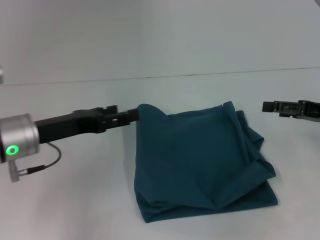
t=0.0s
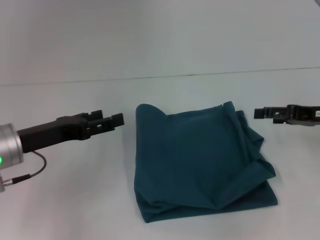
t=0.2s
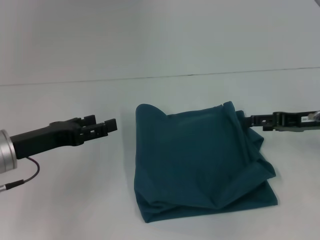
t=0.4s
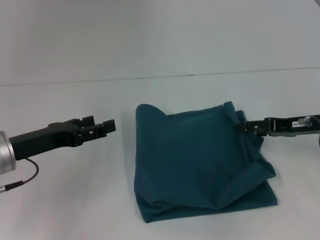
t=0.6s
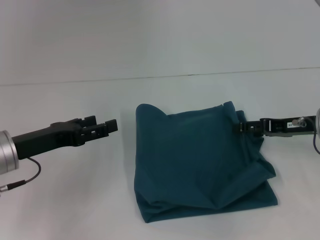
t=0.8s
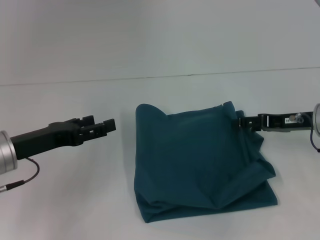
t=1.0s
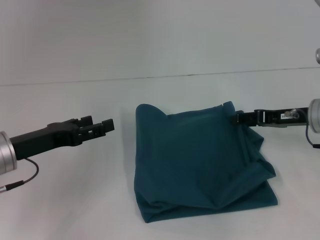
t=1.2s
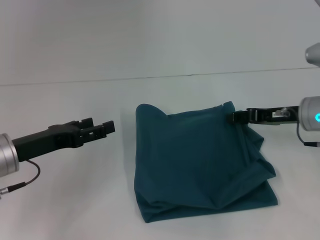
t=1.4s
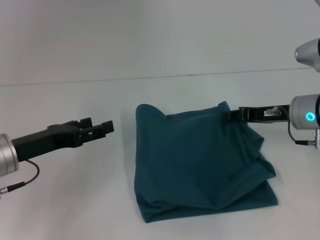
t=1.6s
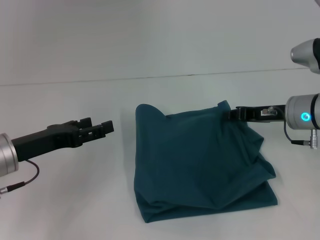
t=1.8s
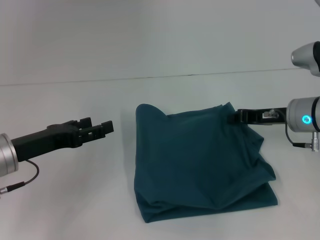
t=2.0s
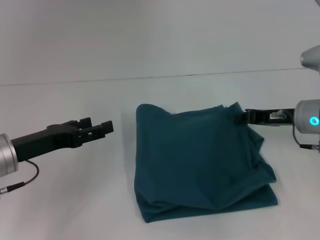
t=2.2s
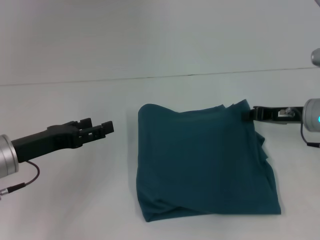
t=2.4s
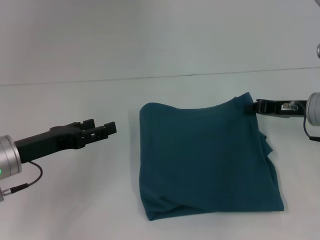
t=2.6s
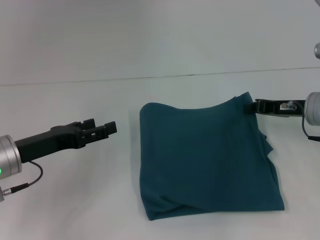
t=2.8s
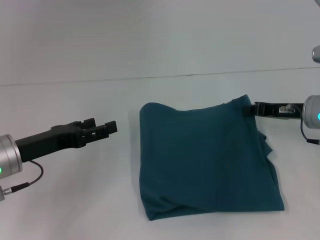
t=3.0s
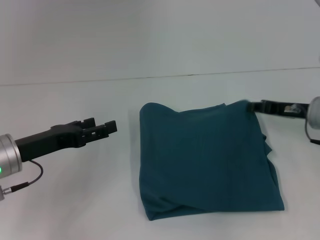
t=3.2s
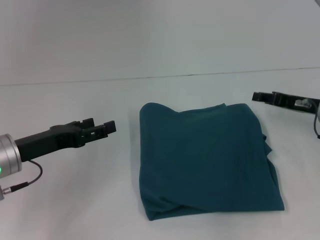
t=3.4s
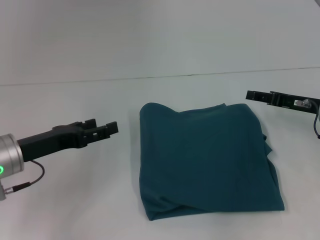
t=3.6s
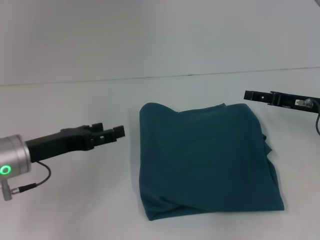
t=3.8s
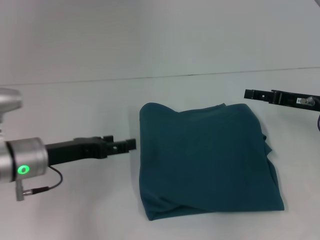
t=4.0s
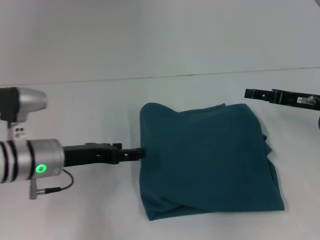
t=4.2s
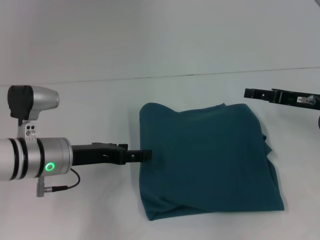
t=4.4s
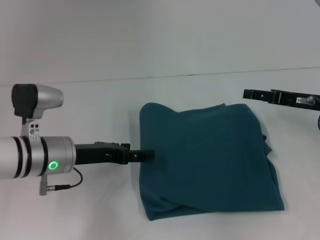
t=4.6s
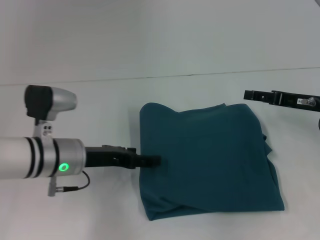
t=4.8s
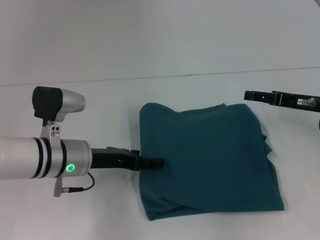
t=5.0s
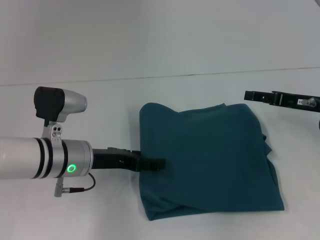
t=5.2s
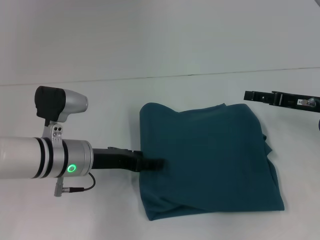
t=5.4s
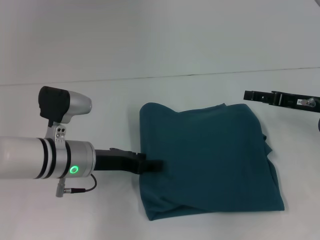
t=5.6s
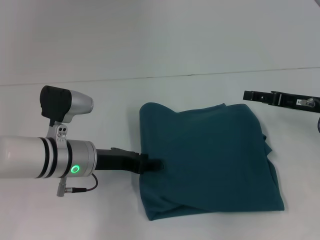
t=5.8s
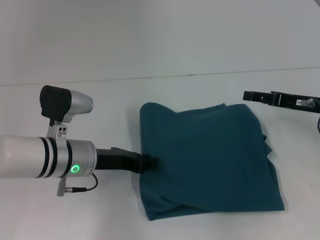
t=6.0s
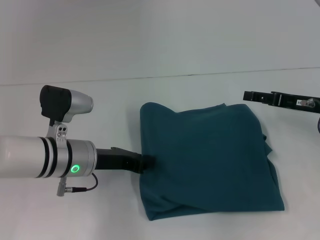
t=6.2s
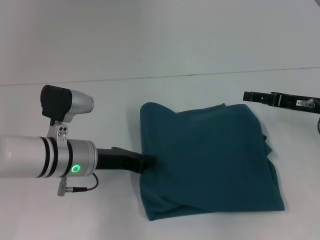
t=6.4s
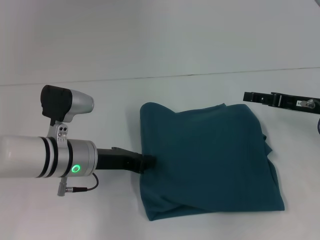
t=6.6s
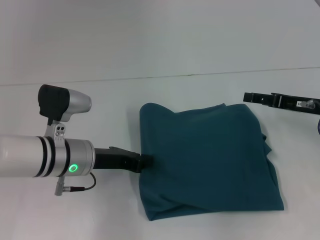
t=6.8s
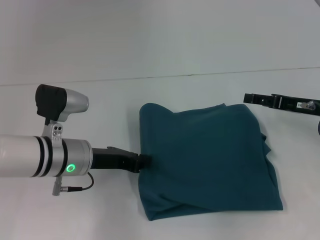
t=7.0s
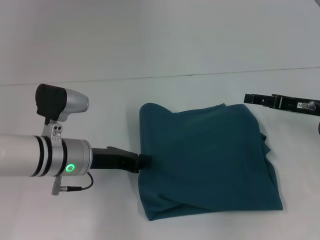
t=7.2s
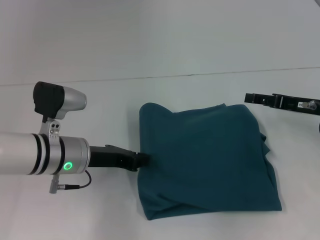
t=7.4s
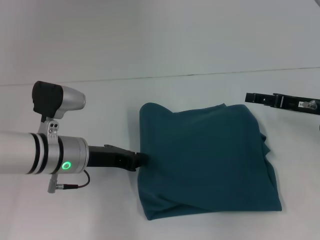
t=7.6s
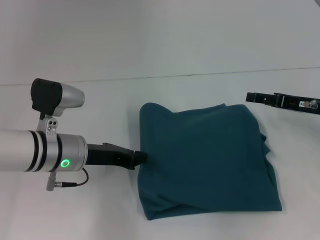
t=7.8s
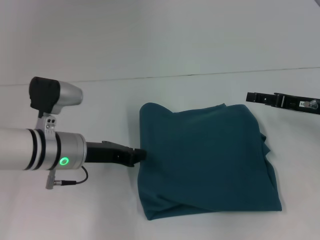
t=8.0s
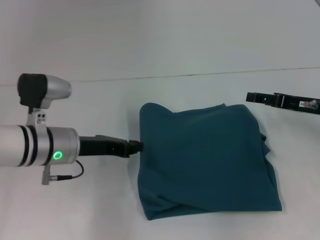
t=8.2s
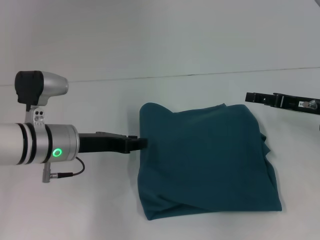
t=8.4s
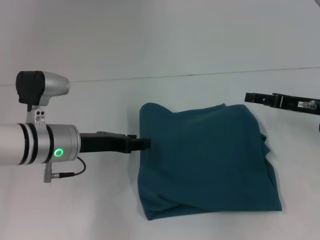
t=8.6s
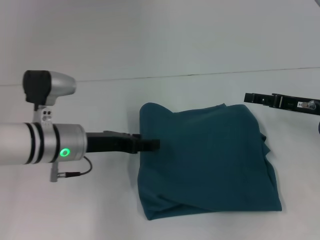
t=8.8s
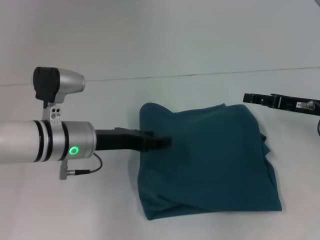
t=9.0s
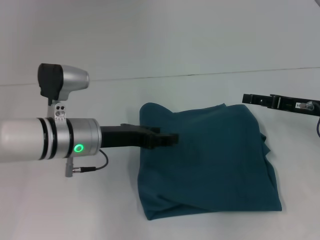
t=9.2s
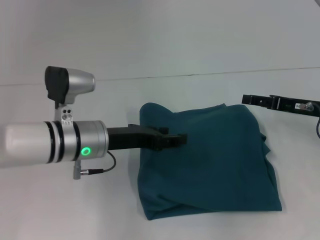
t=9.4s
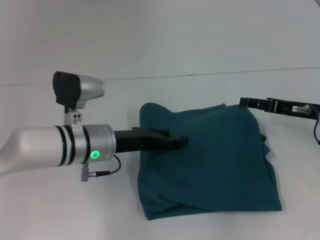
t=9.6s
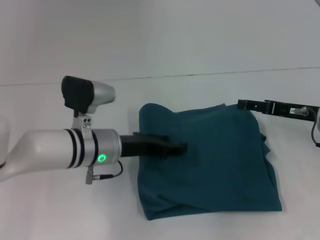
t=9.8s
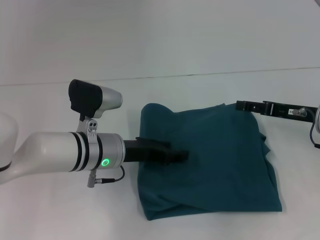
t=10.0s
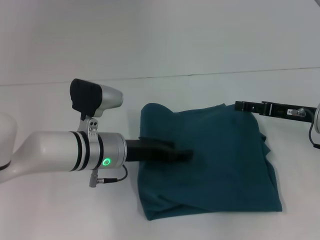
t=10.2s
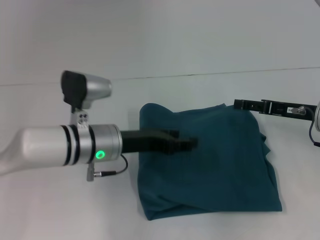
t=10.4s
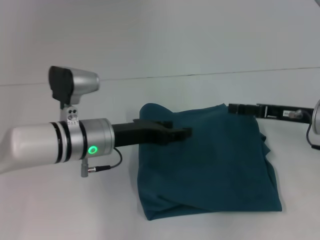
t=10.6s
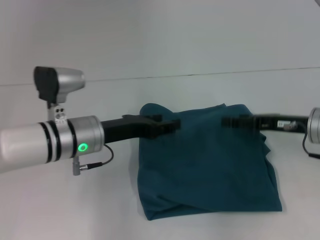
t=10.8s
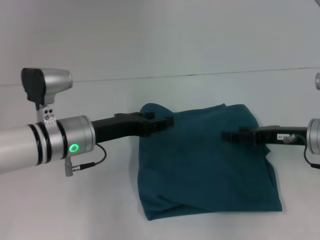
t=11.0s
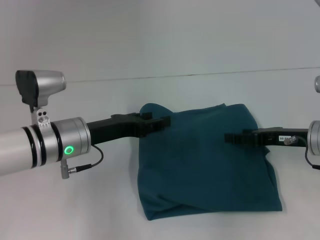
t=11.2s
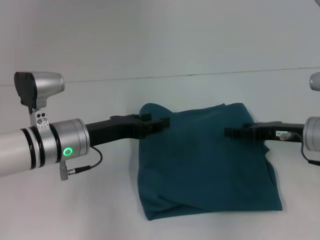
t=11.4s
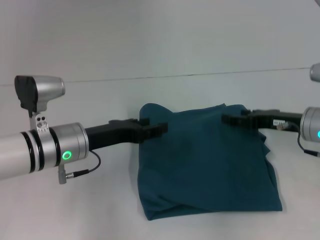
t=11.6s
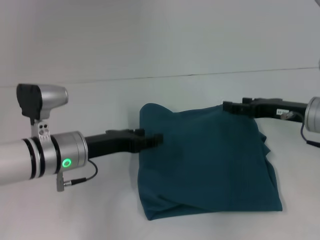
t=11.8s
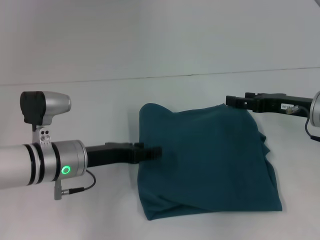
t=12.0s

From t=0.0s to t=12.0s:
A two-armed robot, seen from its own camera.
From t=0.0s to t=1.6s: The right gripper goes approximately 10 cm to the left, and closes up.
From t=1.6s to t=3.0s: The right gripper closes its fingers.
From t=3.0s to t=4.4s: The right gripper opens; the left gripper travels to the right by approximately 5 cm.
From t=4.4s to t=6.0s: The left gripper closes.
From t=6.0s to t=7.6s: The left gripper closes.
From t=7.6s to t=9.0s: The left gripper opens its fingers.
From t=9.0s to t=10.4s: There are only small adjustments of the grippers.
From t=10.4s to t=12.0s: The left gripper heads to the left, covering some 5 cm.

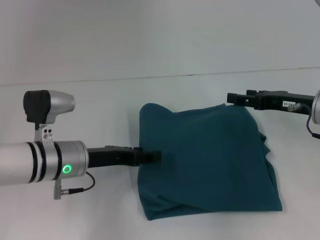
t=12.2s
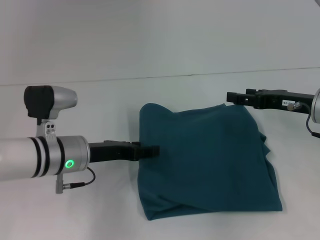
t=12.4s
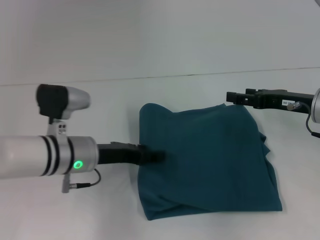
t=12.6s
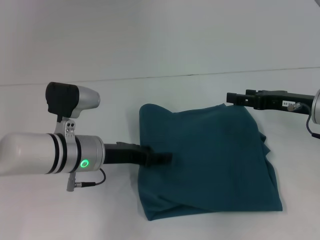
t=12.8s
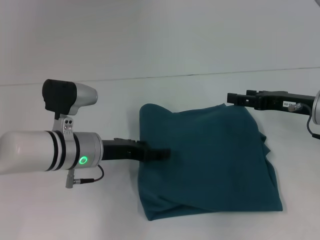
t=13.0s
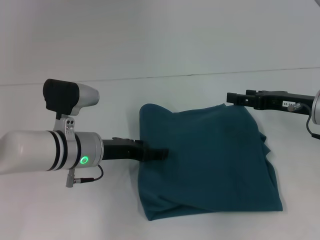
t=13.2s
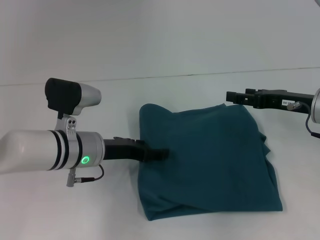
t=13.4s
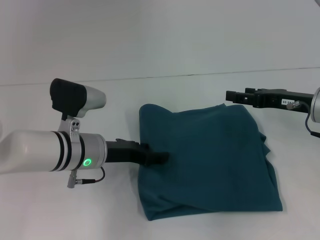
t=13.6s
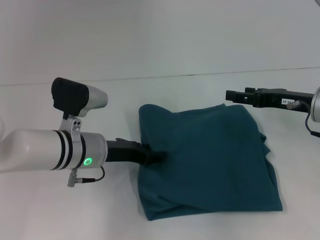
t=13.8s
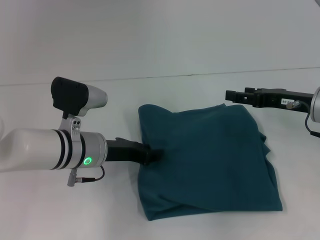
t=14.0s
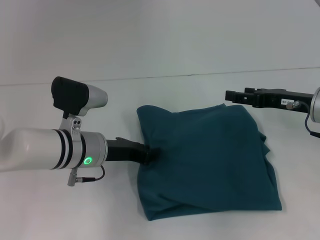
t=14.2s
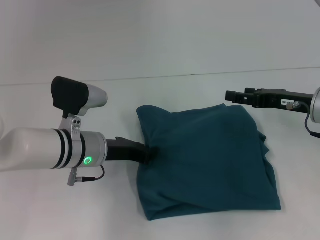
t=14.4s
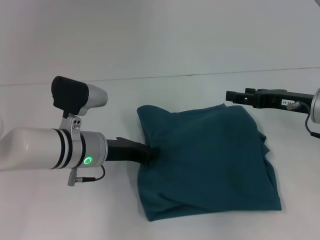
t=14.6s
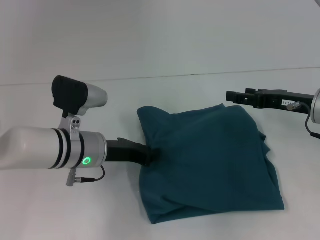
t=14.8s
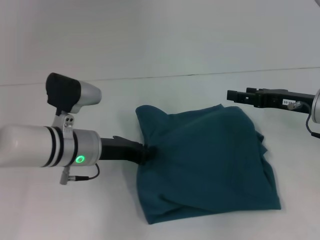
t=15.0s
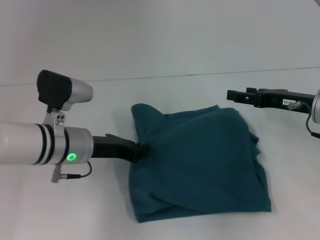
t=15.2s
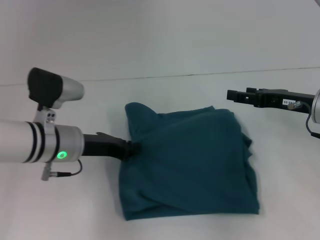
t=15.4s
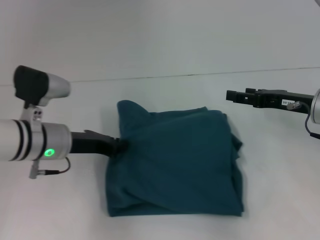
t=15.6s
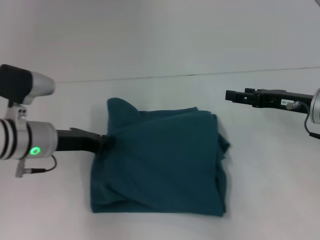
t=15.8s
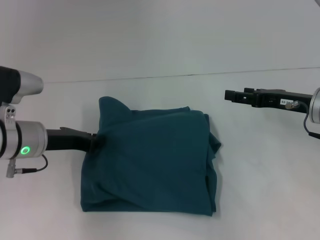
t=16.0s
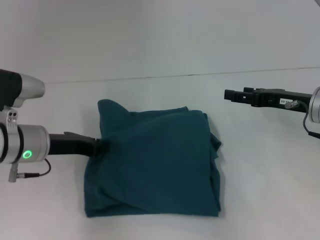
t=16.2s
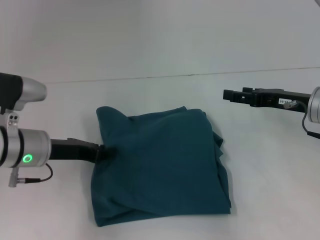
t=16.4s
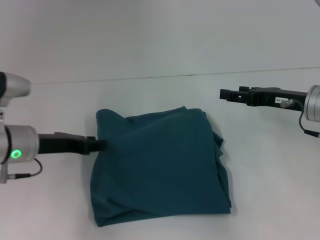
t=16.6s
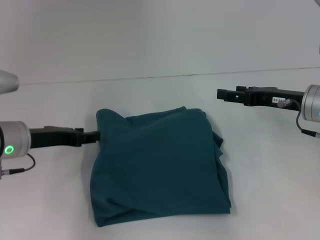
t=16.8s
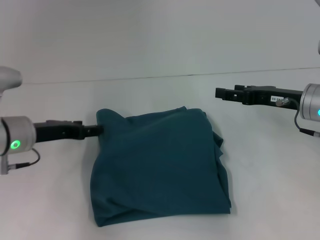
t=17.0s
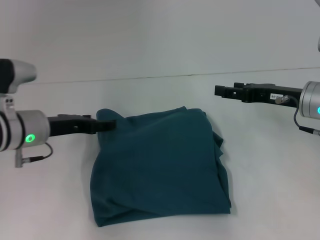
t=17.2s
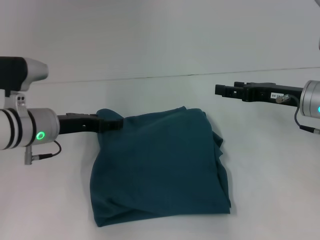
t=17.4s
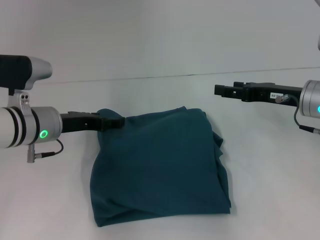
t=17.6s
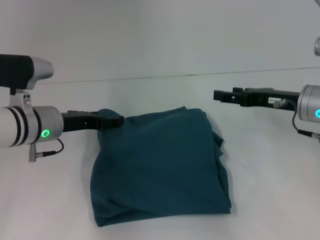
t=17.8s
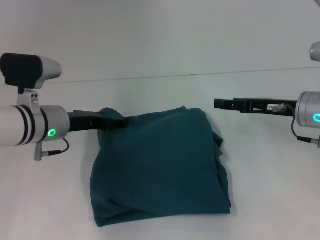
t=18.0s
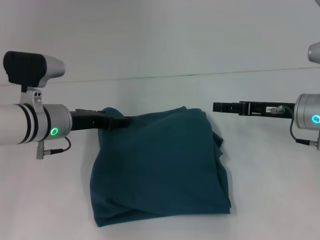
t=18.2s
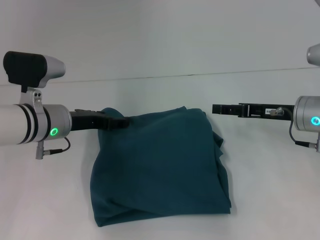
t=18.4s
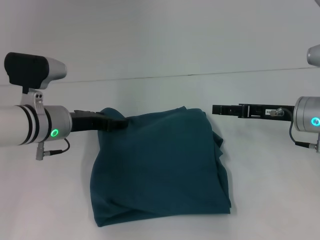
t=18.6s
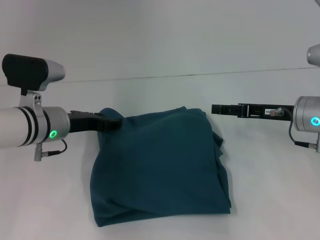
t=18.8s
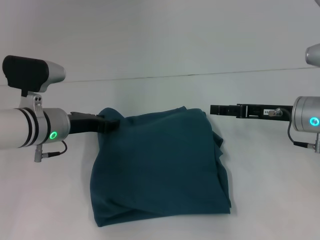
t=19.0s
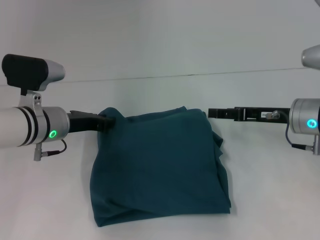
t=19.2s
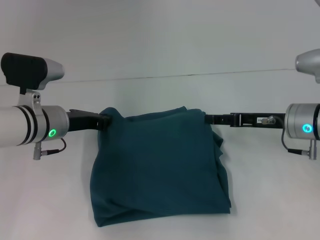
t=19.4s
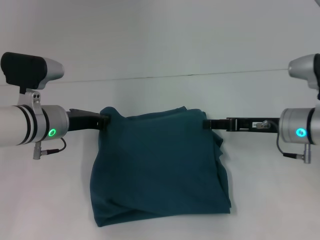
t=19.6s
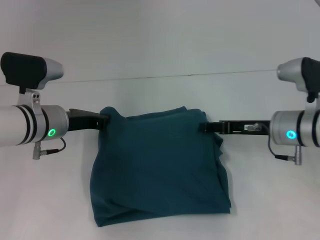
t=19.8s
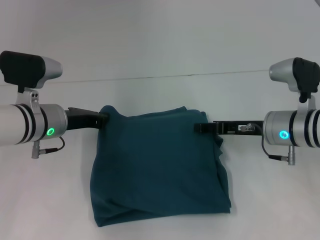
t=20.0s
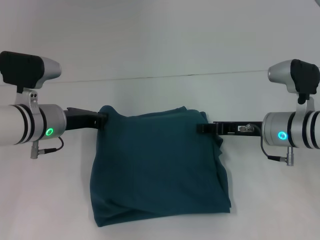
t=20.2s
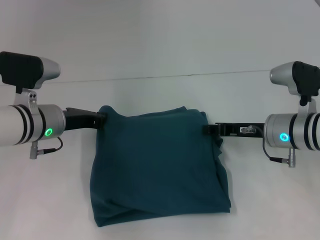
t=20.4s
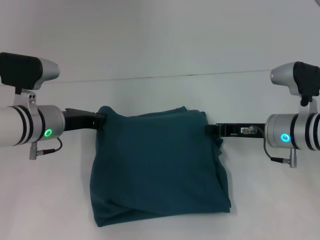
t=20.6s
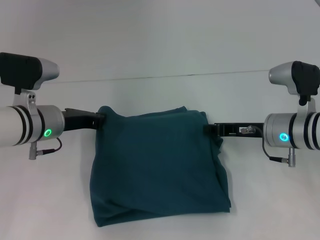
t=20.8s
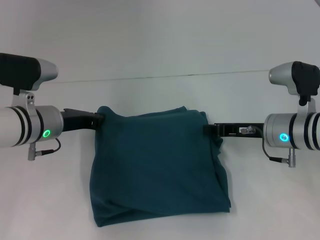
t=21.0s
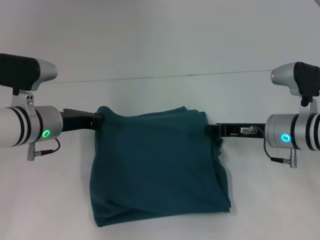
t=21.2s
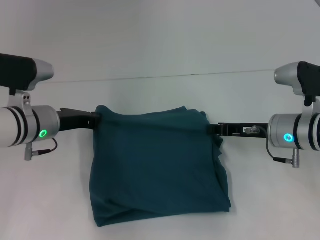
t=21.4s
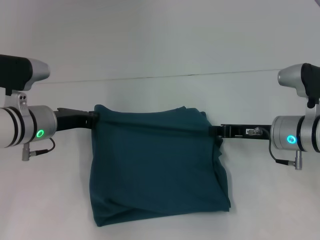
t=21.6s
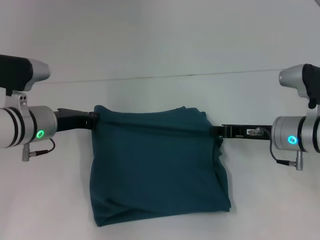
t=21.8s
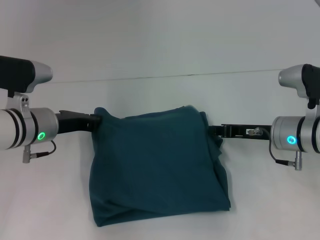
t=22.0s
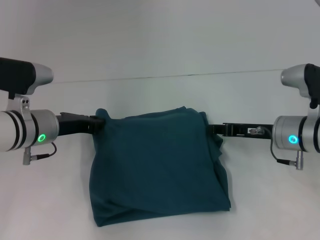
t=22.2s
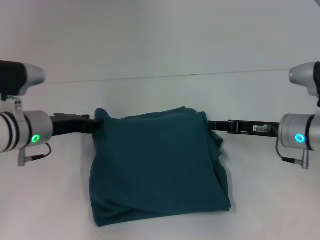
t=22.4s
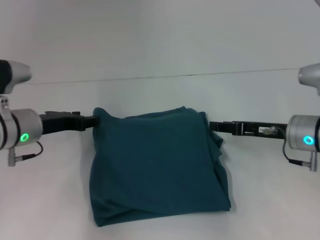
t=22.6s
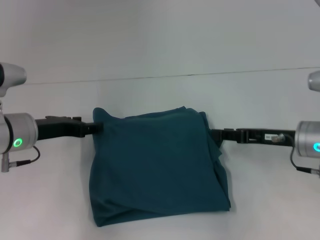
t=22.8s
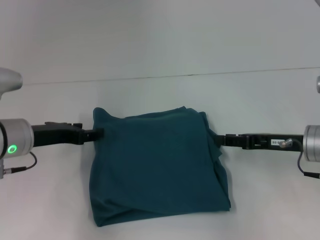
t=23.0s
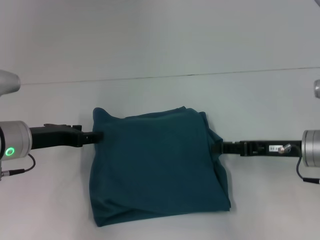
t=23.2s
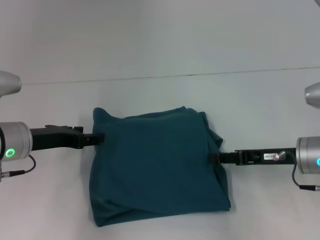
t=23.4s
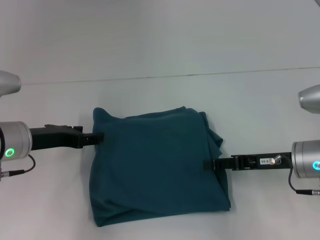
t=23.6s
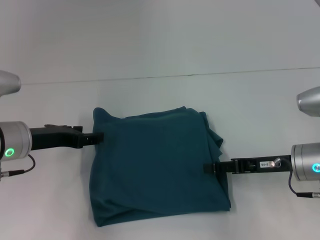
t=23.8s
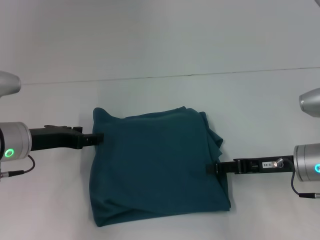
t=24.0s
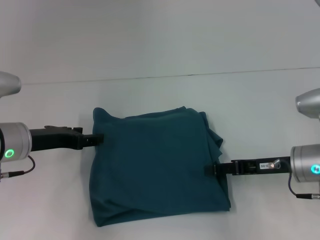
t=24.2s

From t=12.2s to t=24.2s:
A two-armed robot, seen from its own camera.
From t=12.2s to t=13.8s: There are only small adjustments of the grippers.
From t=13.8s to t=15.2s: The left gripper closes up.
From t=15.2s to t=16.6s: The left gripper shifts about 10 cm to the left.
From t=16.6s to t=18.2s: The left gripper ends up roughly 5 cm from where it was, and opens its fingers.
From t=18.2s to t=19.8s: The left gripper closes up.
From t=19.8s to t=21.2s: The right gripper closes its fingers.
From t=21.2s to t=22.6s: The left gripper opens its fingers. The right gripper opens.
From t=22.6s to t=24.2s: The grippers move only a little.
